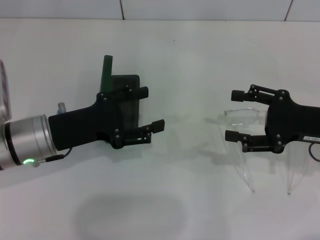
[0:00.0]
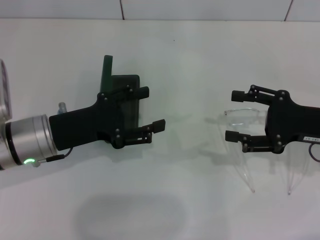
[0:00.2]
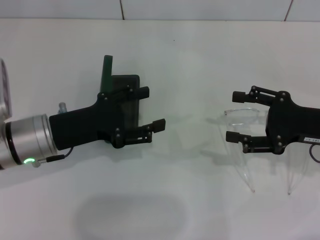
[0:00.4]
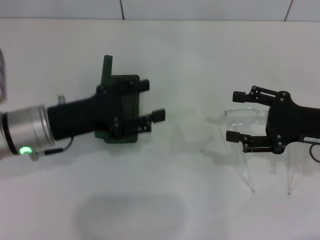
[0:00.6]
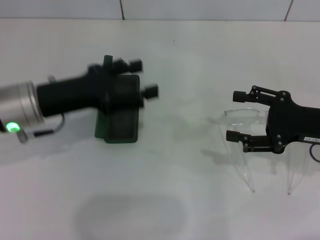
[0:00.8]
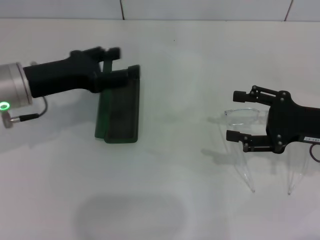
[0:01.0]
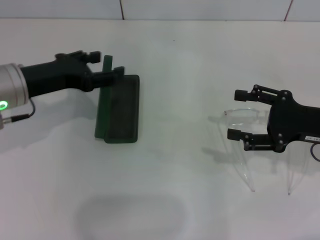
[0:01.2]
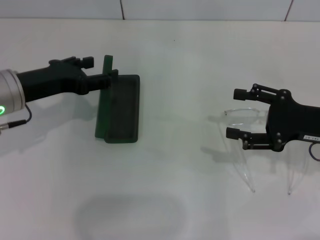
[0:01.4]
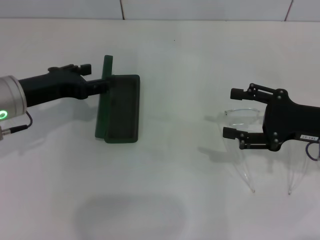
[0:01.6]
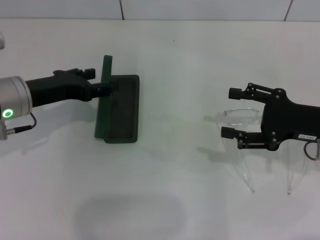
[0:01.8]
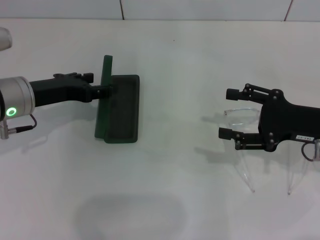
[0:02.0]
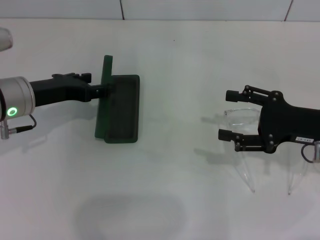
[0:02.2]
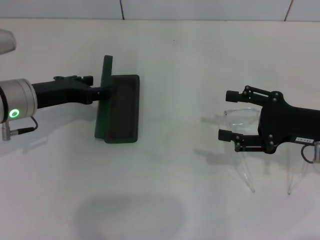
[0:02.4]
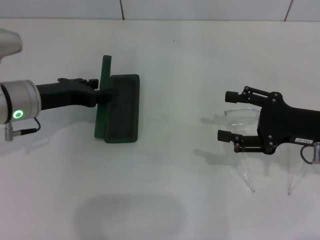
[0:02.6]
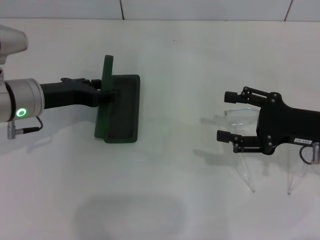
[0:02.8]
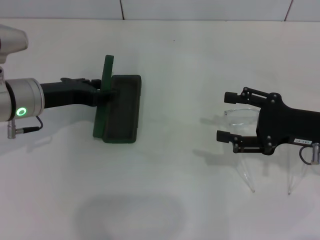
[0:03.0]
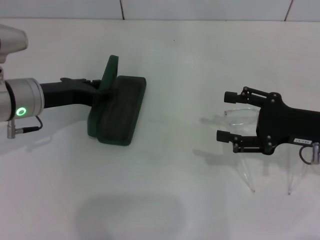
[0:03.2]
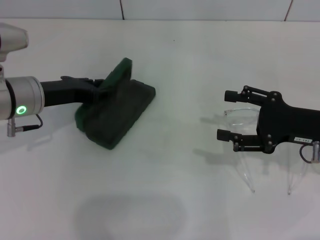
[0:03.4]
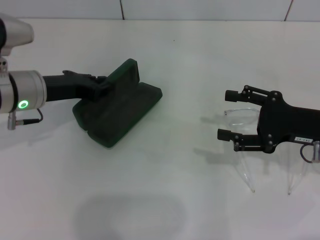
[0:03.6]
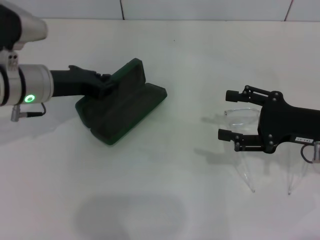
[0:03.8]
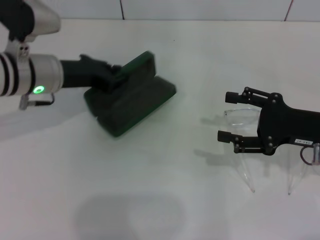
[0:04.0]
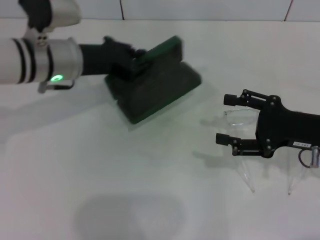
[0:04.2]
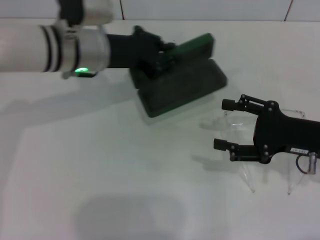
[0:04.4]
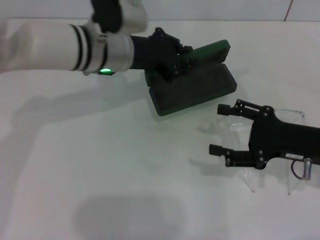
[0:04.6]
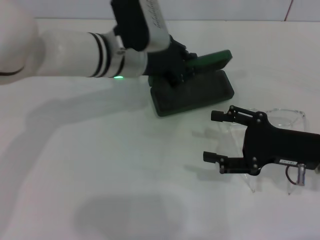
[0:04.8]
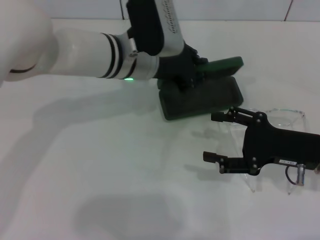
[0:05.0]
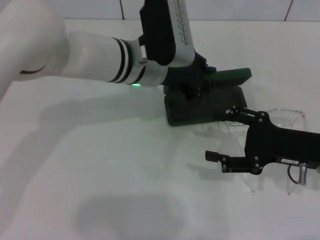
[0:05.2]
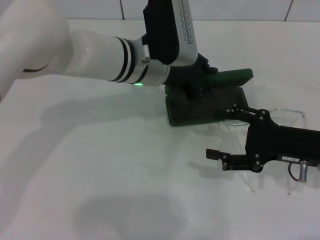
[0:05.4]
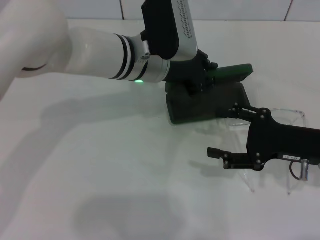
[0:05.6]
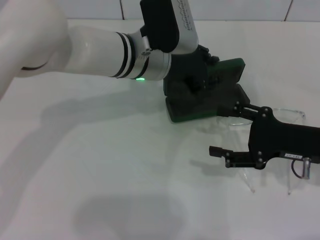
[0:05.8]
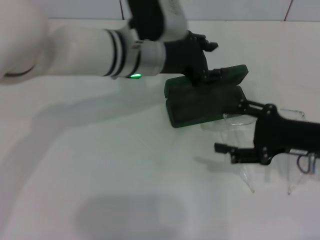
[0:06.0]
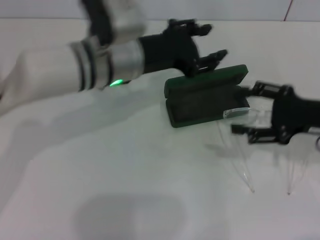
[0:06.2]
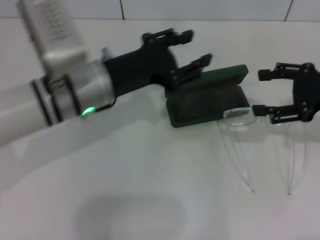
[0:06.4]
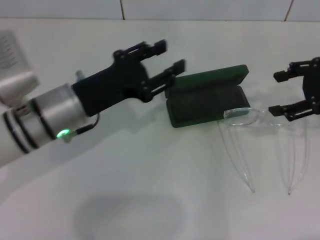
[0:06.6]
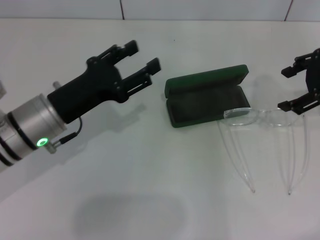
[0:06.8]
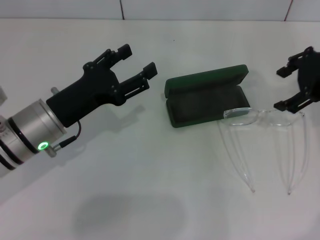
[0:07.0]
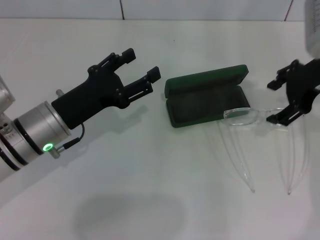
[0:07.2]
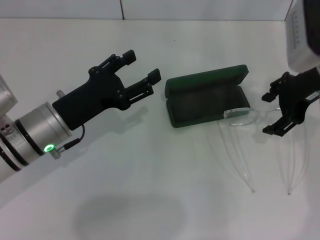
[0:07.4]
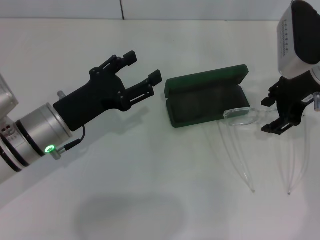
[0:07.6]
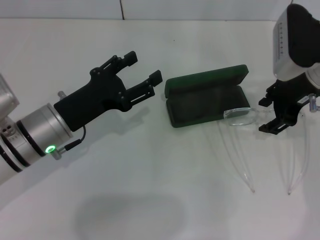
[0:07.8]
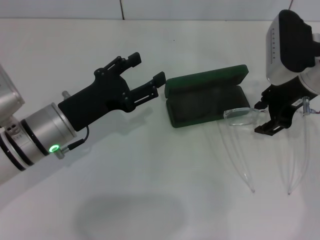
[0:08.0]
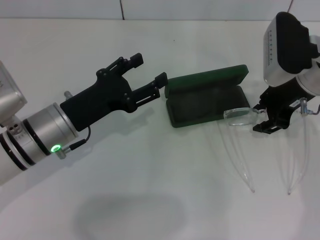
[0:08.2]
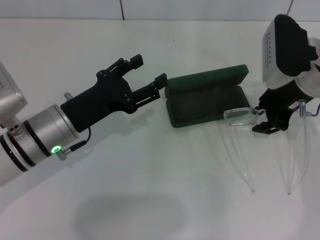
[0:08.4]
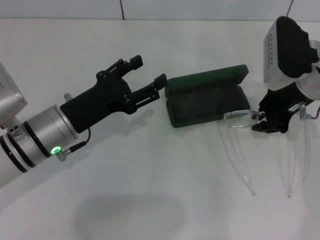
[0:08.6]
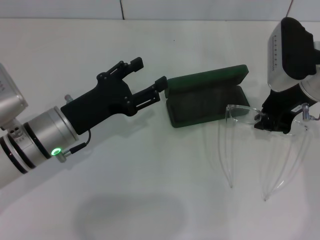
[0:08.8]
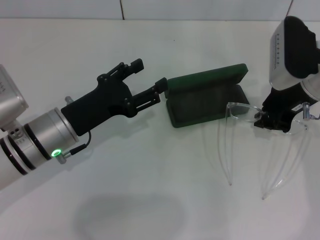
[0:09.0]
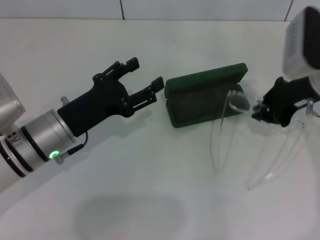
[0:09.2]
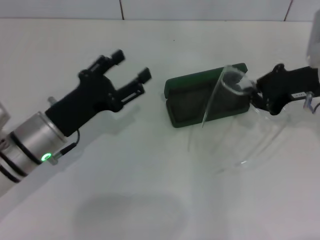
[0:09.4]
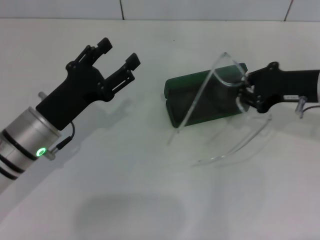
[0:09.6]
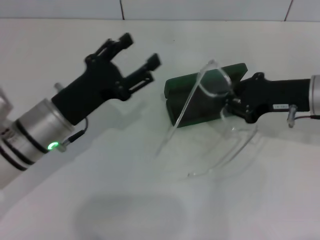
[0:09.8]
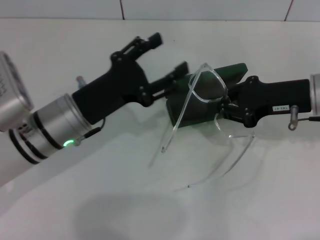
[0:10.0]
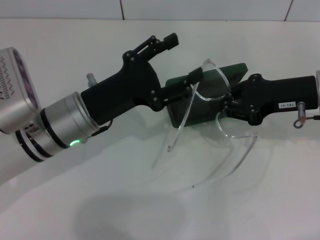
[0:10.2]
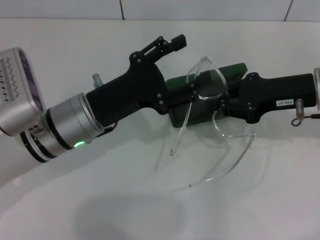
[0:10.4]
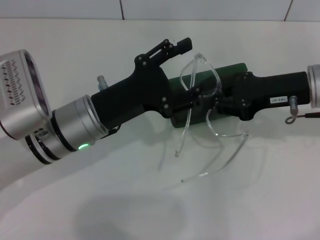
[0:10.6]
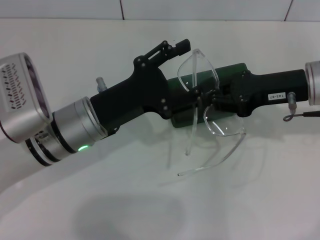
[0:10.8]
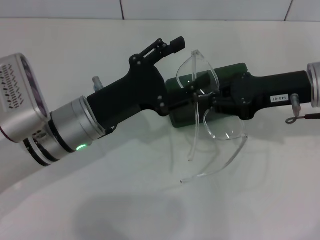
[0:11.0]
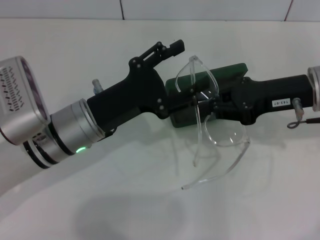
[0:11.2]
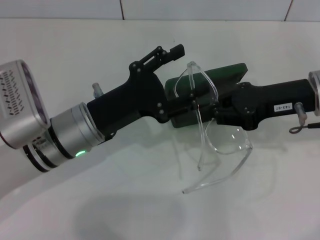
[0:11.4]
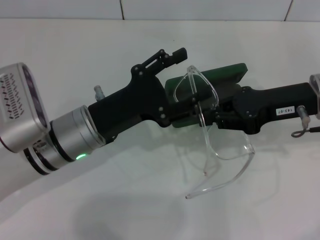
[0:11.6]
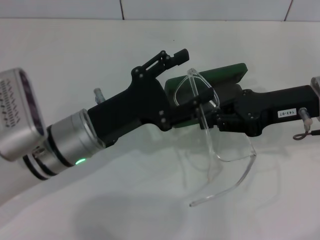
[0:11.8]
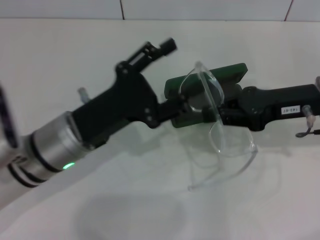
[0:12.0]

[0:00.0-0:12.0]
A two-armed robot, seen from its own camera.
Step, 0:00.0 to 0:03.8: Grab the glasses case with your left hand.
Step, 0:04.0 to 0:06.0: Place the glasses case in the center of the table with your left hand.
Step, 0:06.2 to 0:08.8: Grab the eyeglass frame with your right hand.
0:00.0 to 0:01.6: The left gripper moves approximately 5 cm.
0:01.6 to 0:03.0: The grippers move only a little.
0:03.0 to 0:04.4: The left gripper moves to the right and upward, about 10 cm, and closes up.
0:04.4 to 0:06.0: The left gripper goes approximately 5 cm to the right.
0:06.0 to 0:07.6: The right gripper travels upward and forward by approximately 15 cm; the left gripper is displaced to the left, backward and downward by roughly 20 cm, and opens up.
0:07.6 to 0:09.0: The right gripper closes its fingers.

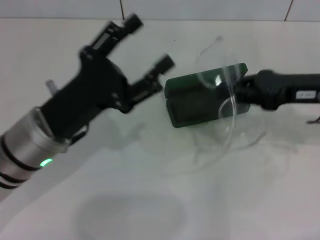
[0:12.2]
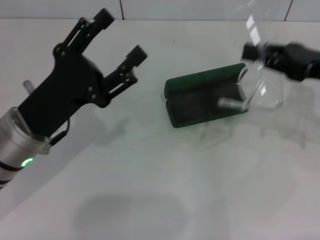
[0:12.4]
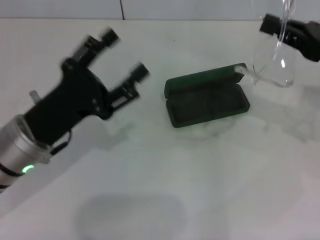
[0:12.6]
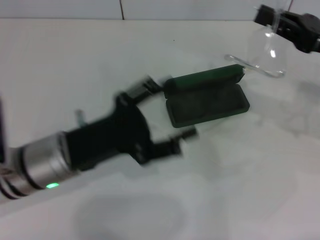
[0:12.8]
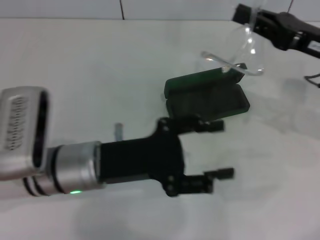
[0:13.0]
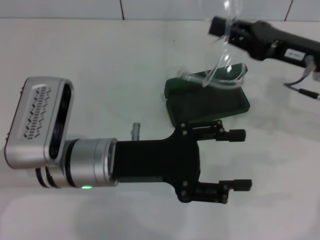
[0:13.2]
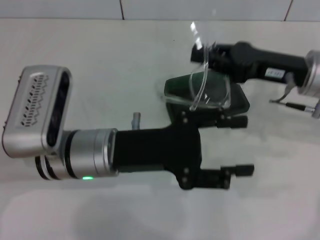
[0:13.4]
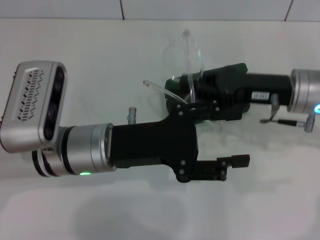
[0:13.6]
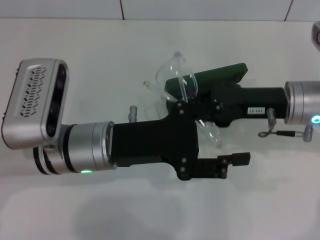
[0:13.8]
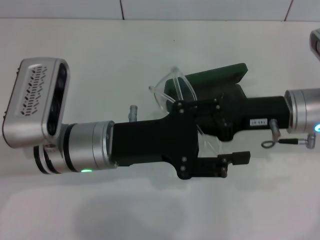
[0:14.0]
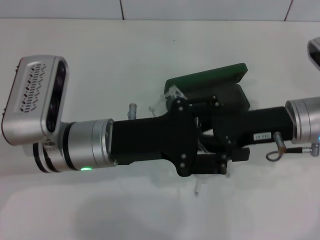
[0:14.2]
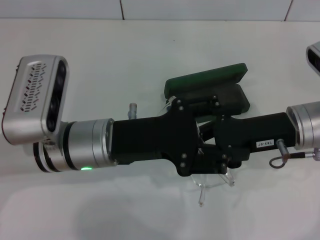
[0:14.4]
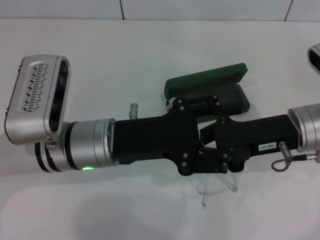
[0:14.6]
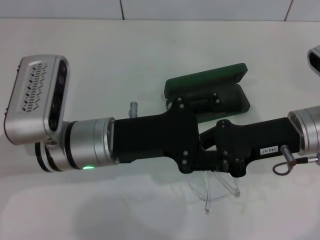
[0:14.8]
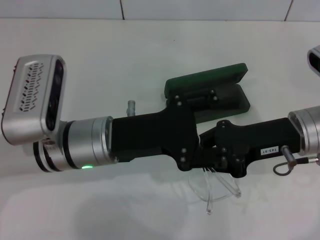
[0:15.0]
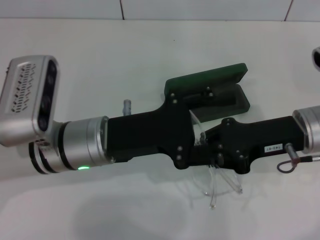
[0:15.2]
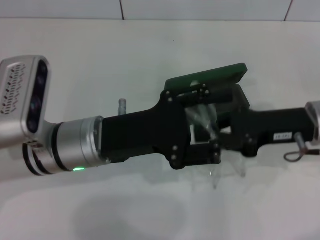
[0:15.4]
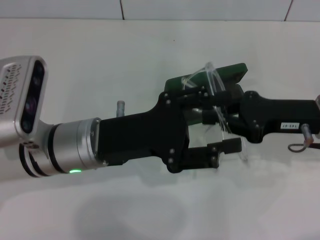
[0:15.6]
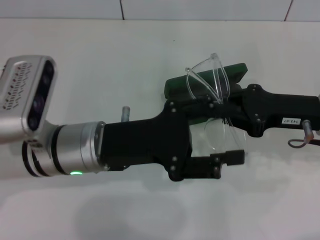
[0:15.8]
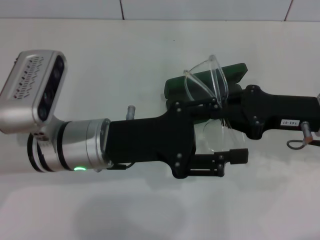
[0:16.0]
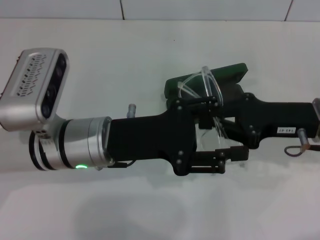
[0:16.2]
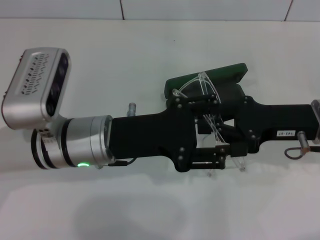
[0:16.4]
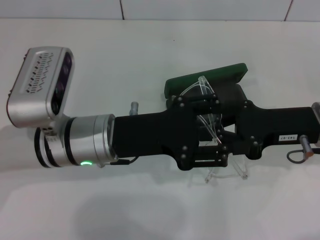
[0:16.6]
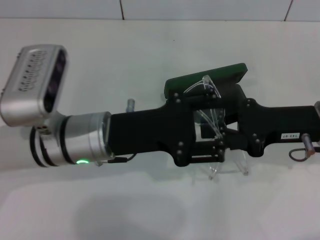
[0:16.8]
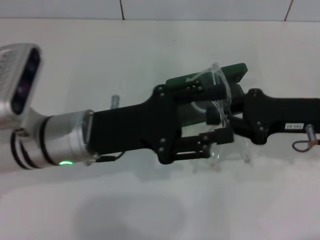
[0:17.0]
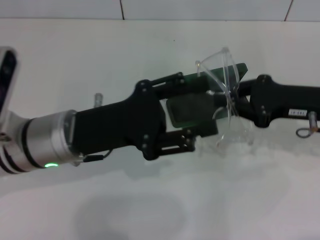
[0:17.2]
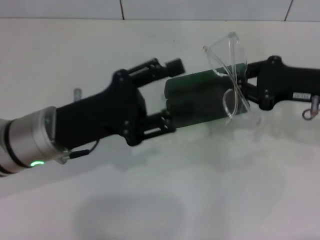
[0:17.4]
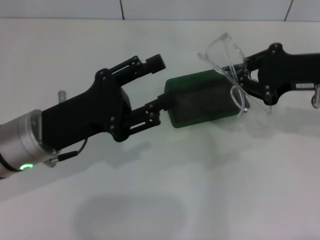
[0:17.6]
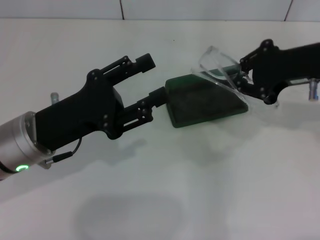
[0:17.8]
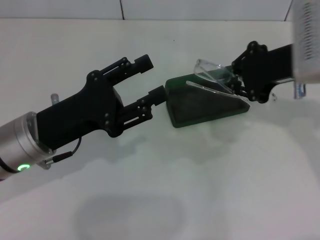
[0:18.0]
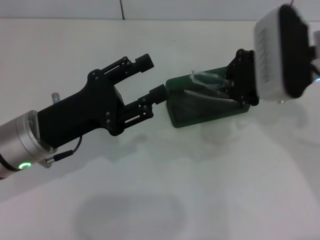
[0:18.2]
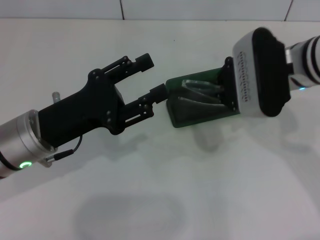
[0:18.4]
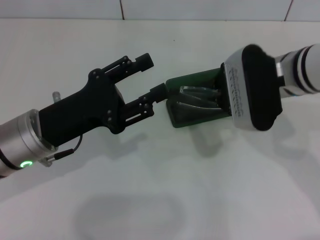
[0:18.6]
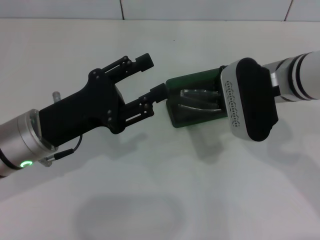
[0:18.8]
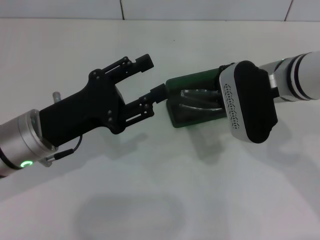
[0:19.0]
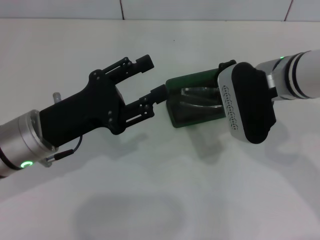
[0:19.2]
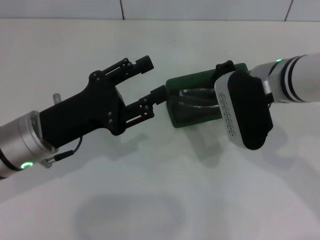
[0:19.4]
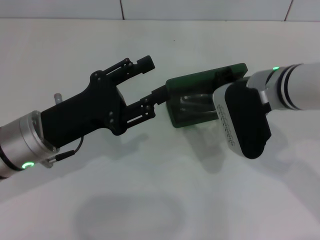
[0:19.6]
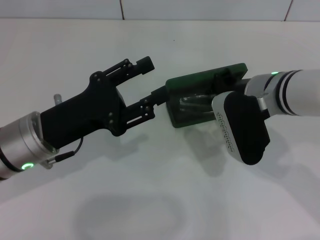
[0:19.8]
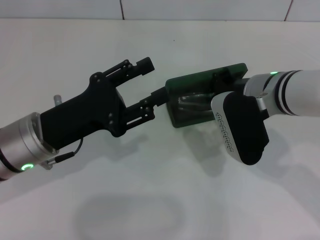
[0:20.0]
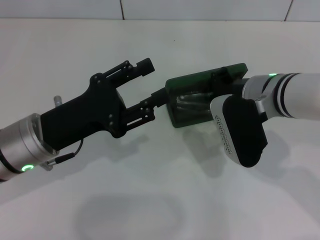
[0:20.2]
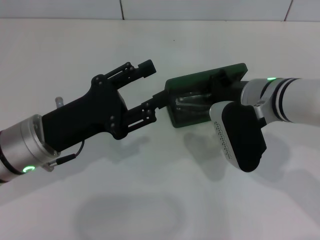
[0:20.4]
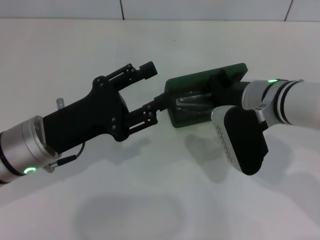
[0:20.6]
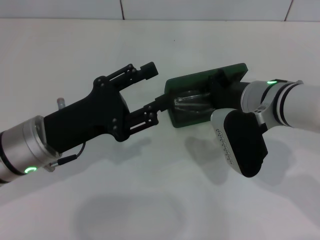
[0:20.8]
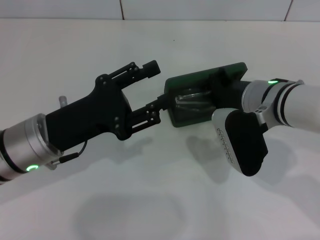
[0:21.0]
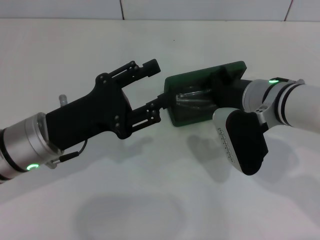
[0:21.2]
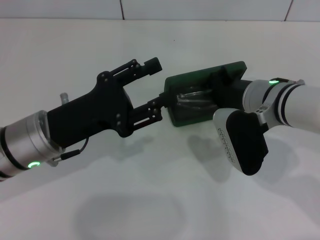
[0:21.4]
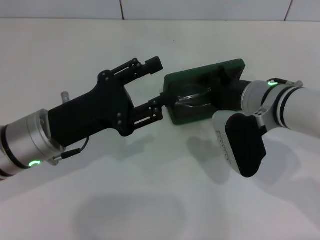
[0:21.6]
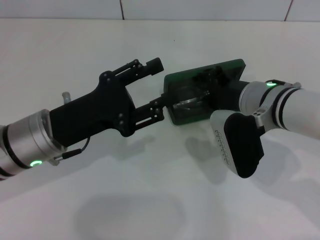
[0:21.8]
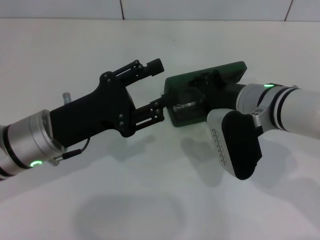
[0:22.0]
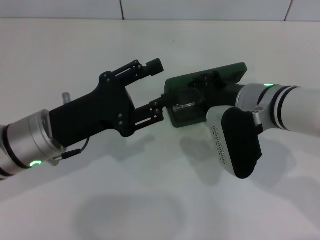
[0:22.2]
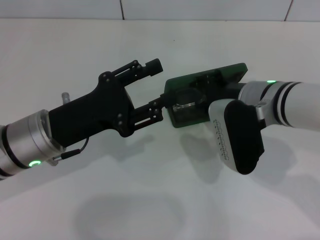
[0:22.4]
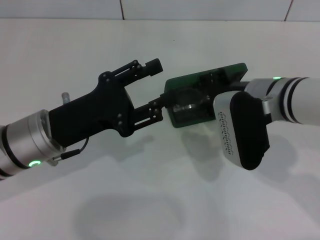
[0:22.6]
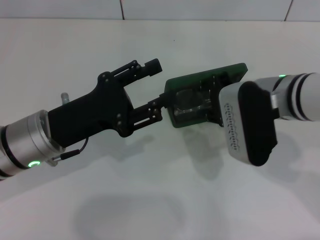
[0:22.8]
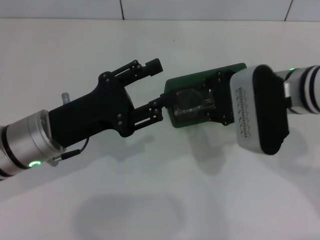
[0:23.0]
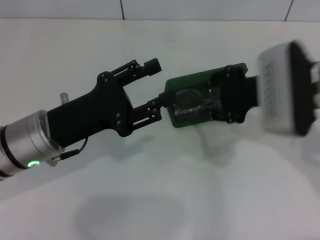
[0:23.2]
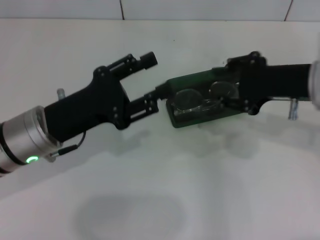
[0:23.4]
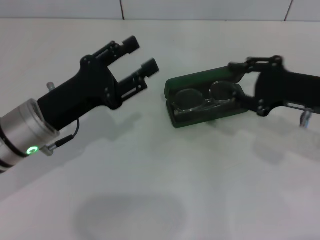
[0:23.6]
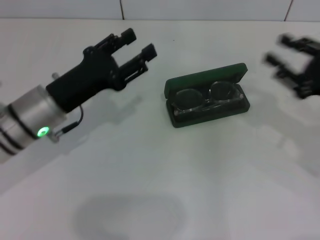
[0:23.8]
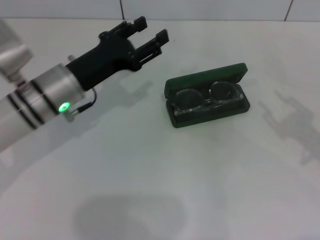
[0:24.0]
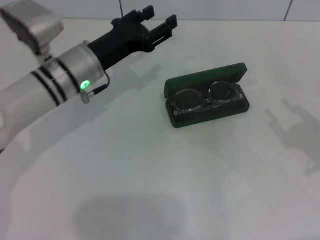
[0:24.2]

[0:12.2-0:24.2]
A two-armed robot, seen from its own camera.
Step, 0:12.2 to 0:16.6: Lift the glasses with your right hand.
Step, 0:16.8 to 0:22.8: Put the glasses into the case with your right hand.
0:12.2 to 0:13.8: The right gripper goes roughly 5 cm to the left, while the left gripper travels to the right by approximately 5 cm.
0:15.2 to 0:16.6: There are only small adjustments of the grippers.
0:16.6 to 0:18.2: The right gripper travels upward, to the left and forward by roughly 10 cm, while the left gripper travels to the left by about 10 cm.
0:18.2 to 0:19.8: The right gripper heads downward, covering about 5 cm.
0:19.8 to 0:21.2: The grippers move only a little.
0:21.2 to 0:22.6: The right gripper opens.
0:22.6 to 0:24.2: The left gripper is displaced forward by roughly 10 cm. The right gripper travels to the right and backward by about 20 cm.
